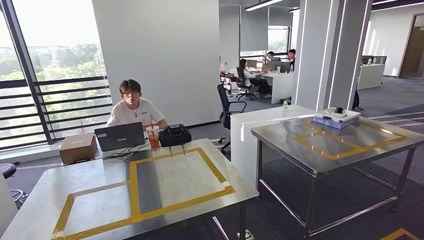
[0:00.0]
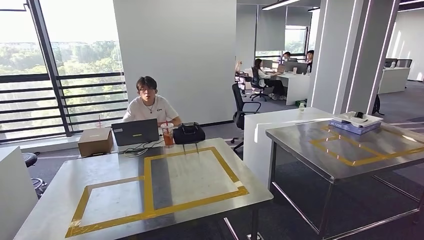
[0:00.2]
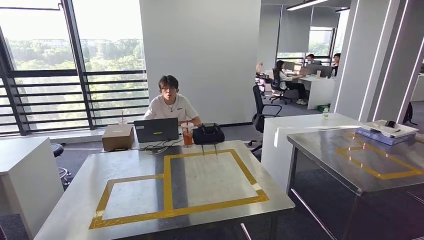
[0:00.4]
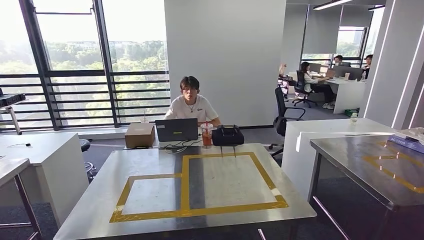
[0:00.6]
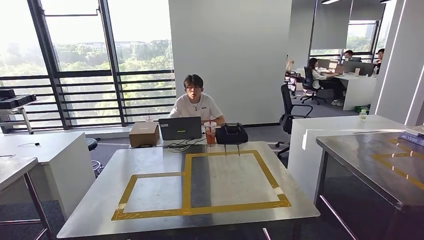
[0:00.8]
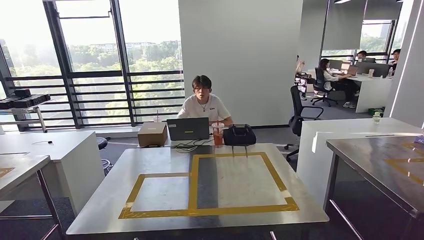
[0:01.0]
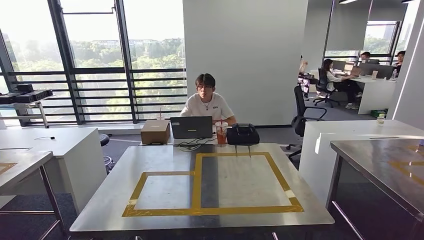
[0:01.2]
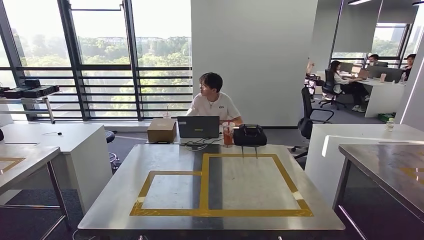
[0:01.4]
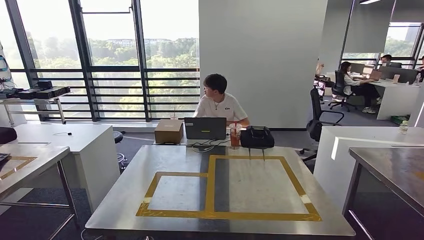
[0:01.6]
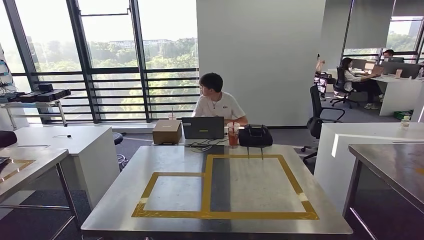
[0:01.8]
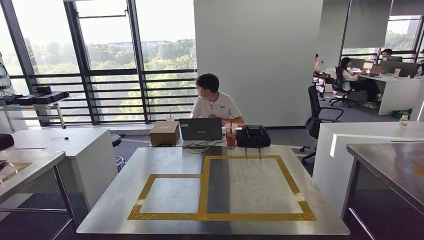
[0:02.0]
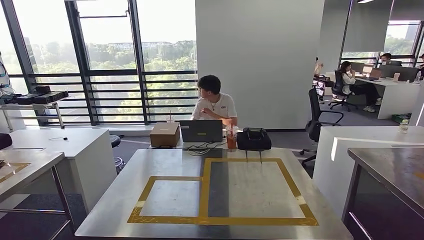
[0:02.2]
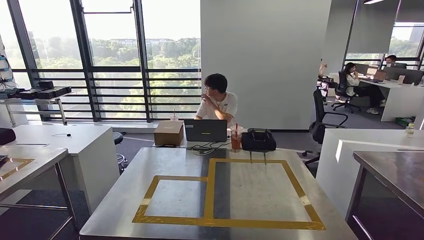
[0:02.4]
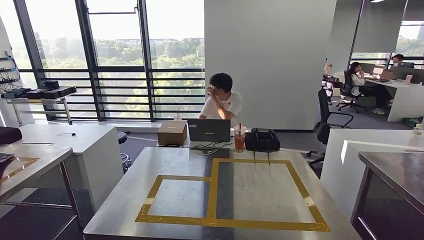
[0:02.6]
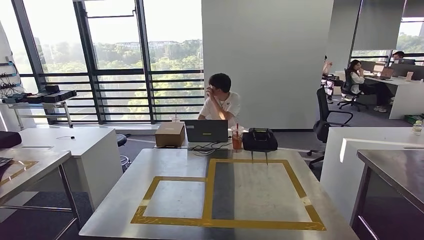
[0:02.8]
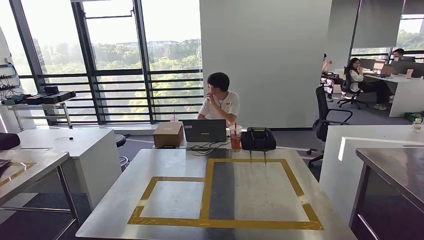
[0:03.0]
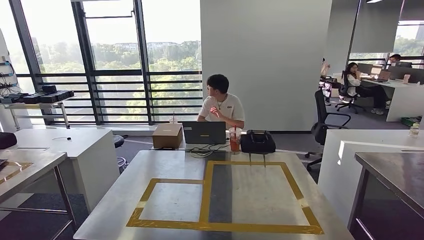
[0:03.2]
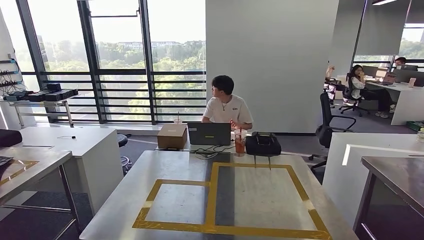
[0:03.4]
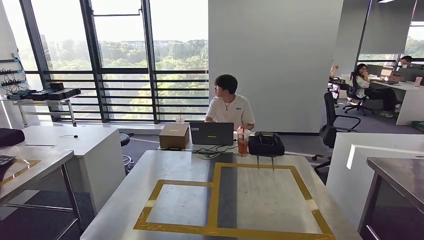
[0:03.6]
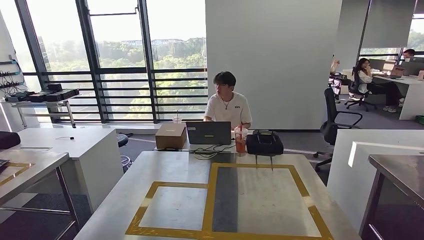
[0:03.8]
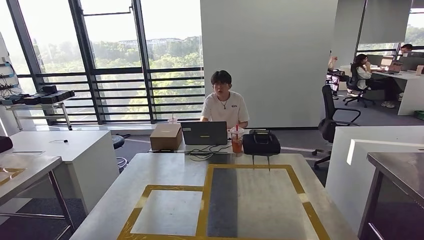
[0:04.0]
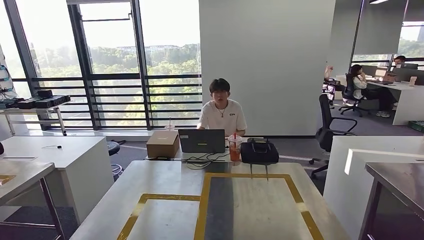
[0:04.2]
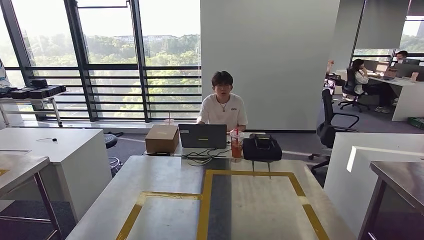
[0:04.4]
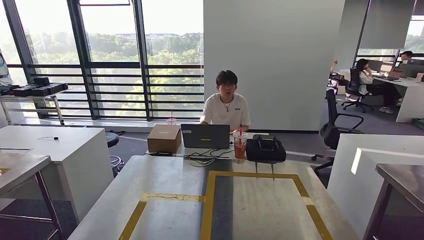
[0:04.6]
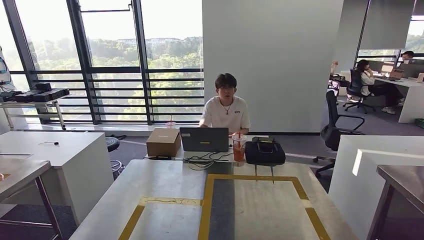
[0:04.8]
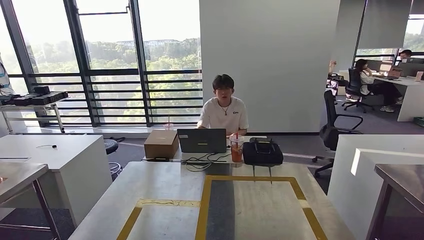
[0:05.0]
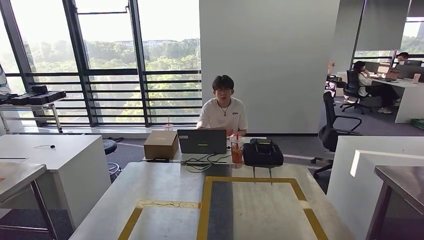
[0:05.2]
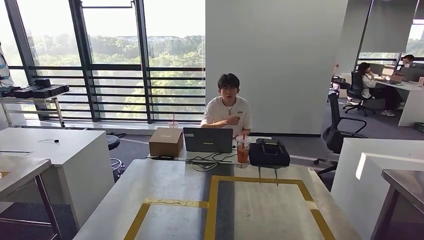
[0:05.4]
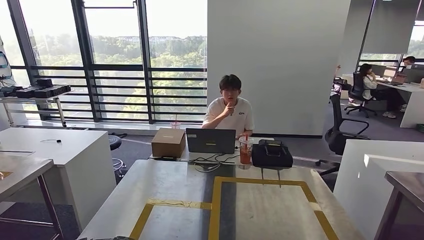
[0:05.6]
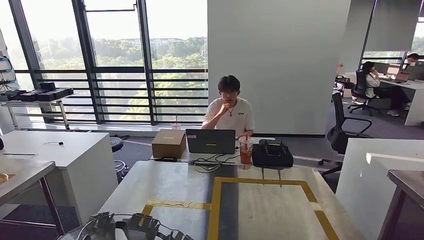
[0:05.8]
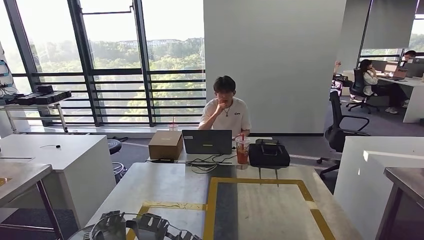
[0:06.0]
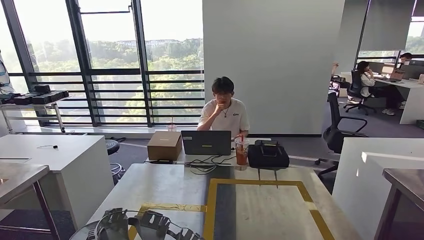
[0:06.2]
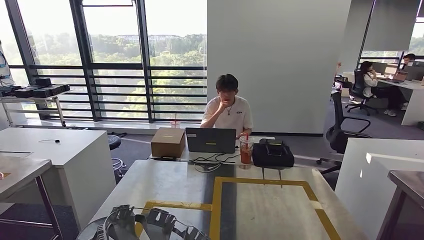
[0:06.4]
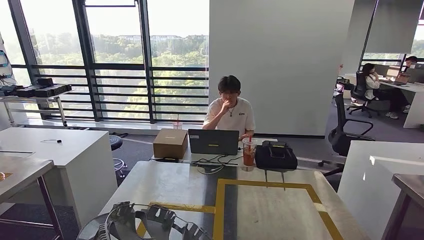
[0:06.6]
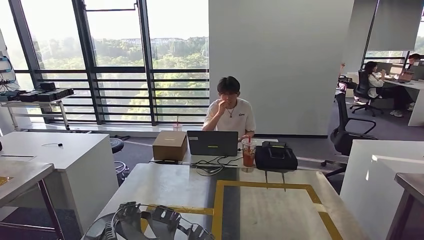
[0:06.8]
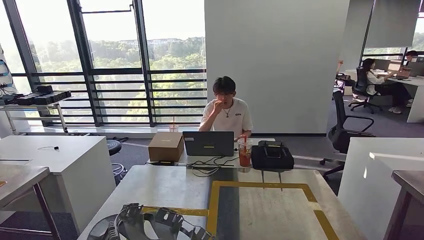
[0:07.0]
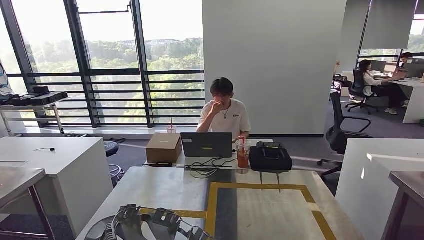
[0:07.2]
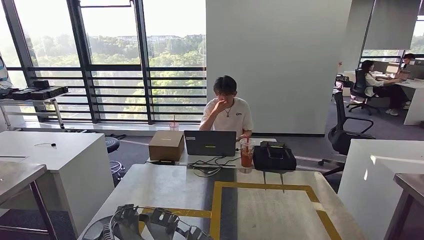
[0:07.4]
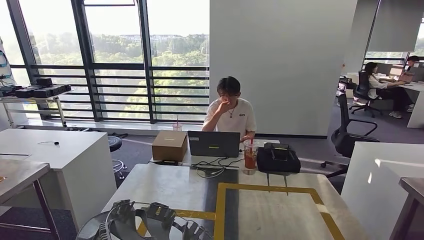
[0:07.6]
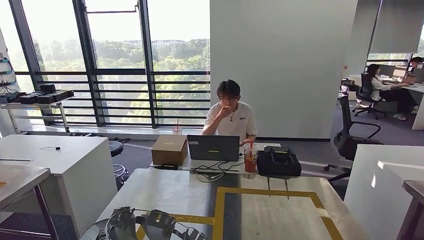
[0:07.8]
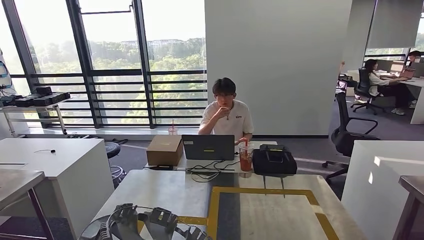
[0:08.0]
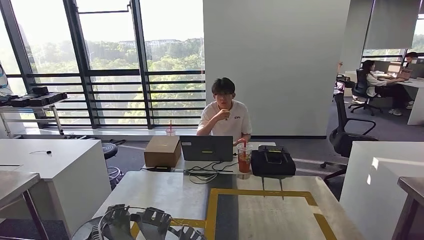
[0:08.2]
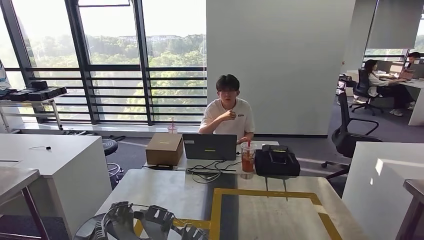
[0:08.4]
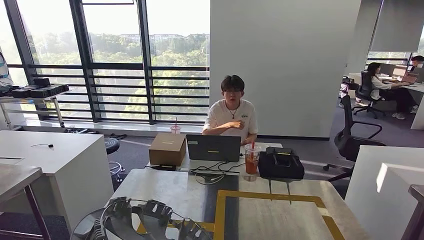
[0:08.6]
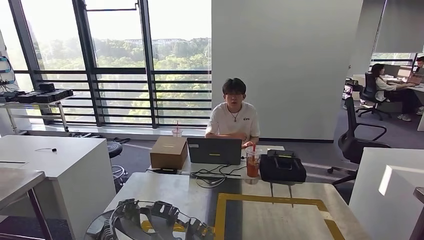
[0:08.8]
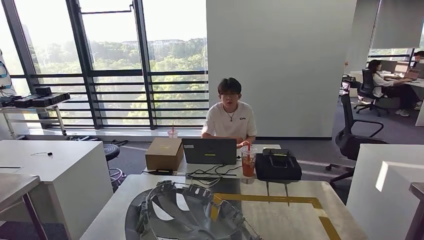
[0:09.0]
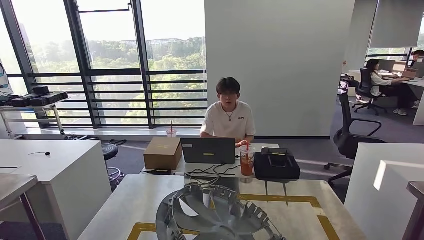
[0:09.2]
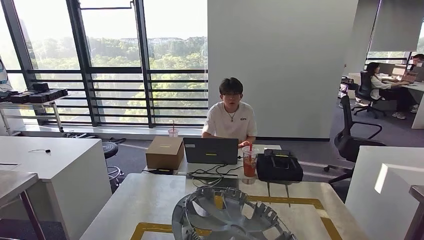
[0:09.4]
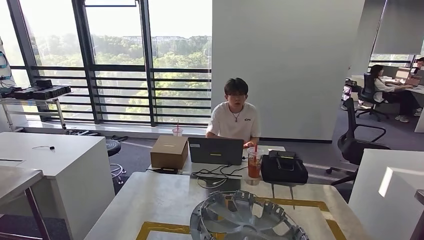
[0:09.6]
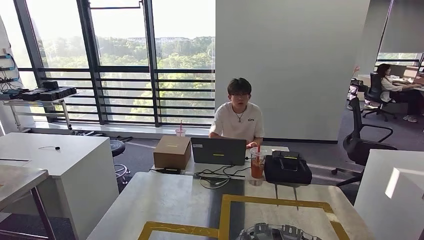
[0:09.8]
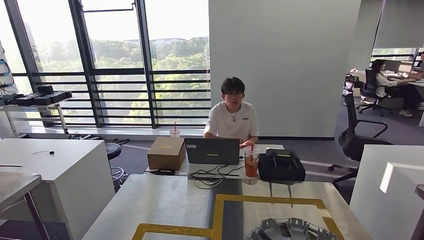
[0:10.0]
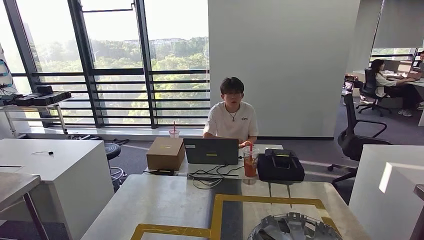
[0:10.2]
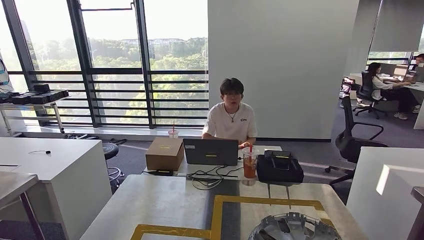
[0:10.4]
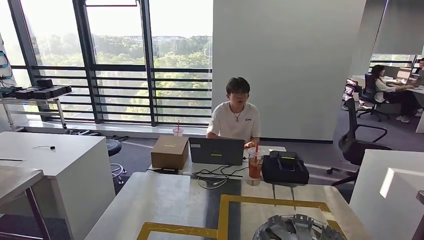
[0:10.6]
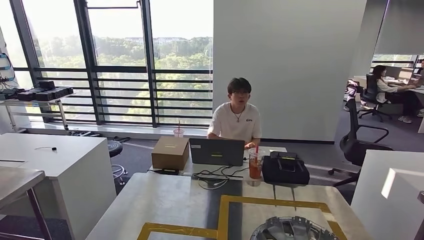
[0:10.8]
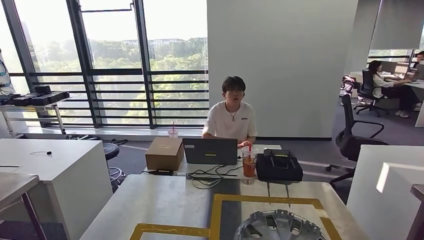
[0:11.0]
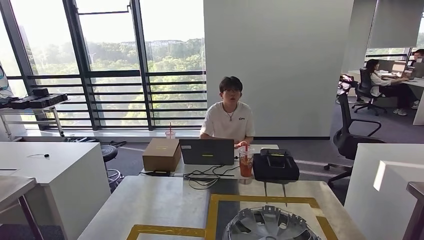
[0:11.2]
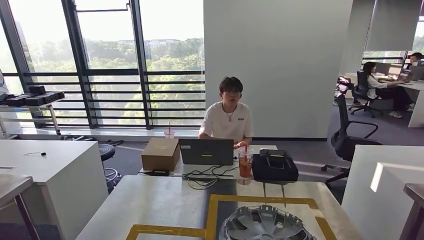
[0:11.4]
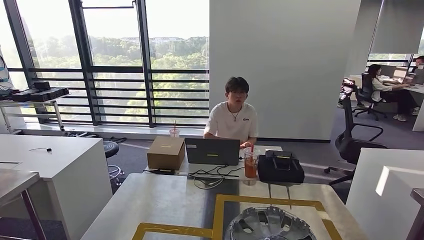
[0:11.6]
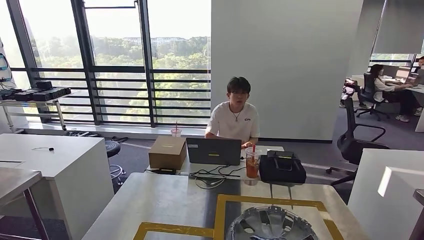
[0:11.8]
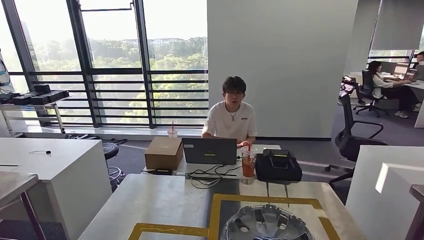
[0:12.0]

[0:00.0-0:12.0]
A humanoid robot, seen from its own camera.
Step, 0:00.0 to 0:11.0: Insert the small component into the corresponding slot on the workbench.
0:10.4 to 0:12.0: The right hand moves to the left and forward, about 15 cm.

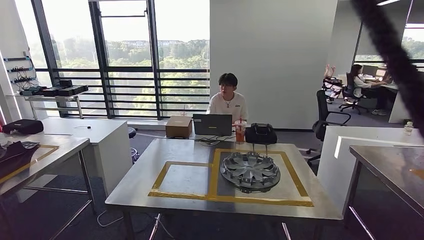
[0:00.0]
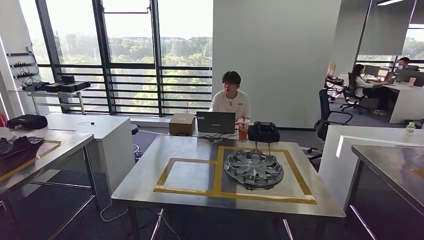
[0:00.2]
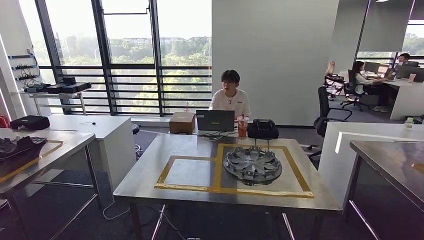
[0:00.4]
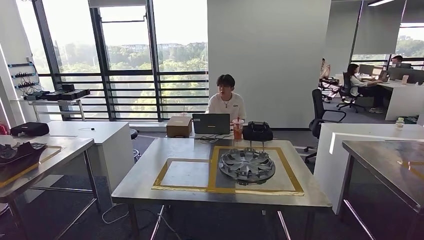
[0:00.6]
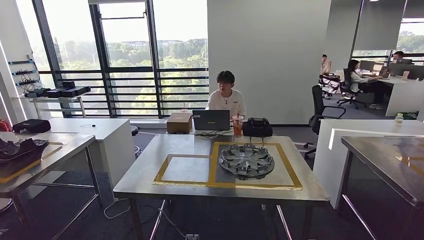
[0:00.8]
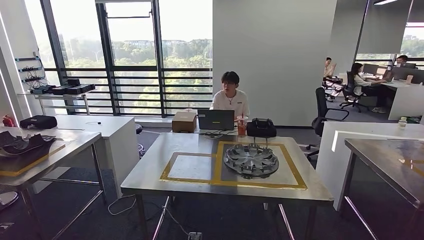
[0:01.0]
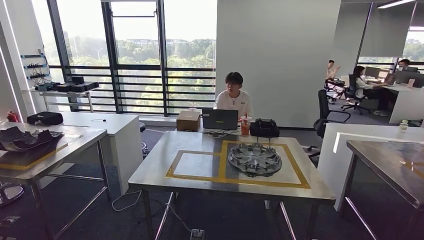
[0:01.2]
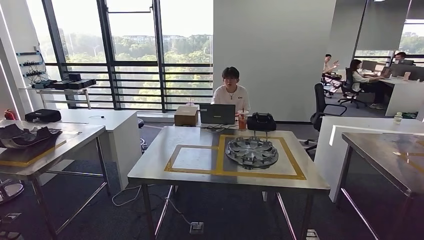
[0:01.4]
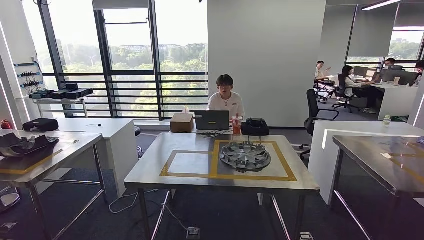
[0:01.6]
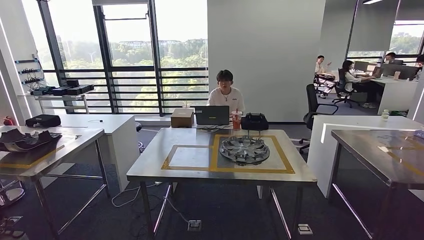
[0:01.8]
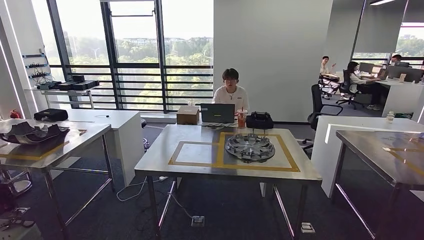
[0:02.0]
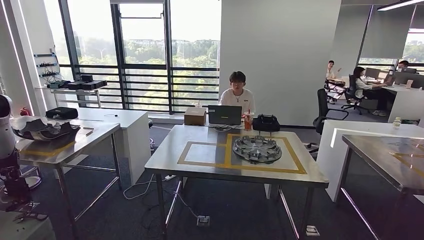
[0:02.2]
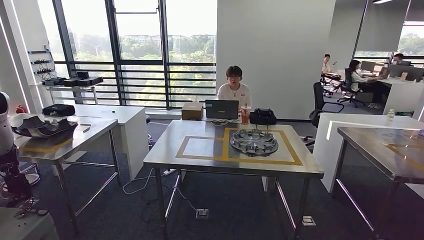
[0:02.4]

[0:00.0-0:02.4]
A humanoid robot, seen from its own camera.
Step, 0:00.0 to 0:02.4: Move to the initial position at the workbench.
